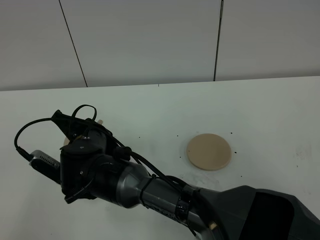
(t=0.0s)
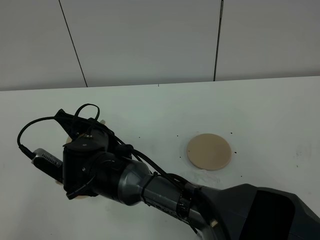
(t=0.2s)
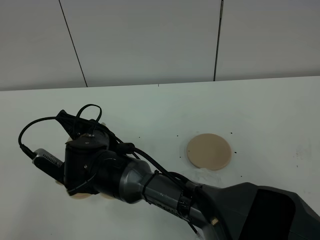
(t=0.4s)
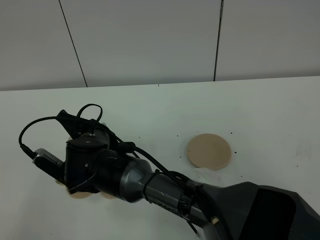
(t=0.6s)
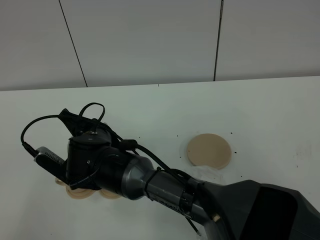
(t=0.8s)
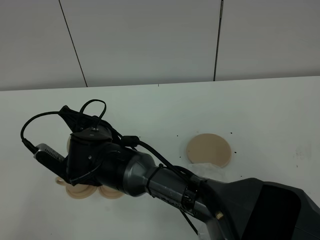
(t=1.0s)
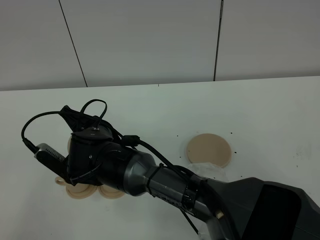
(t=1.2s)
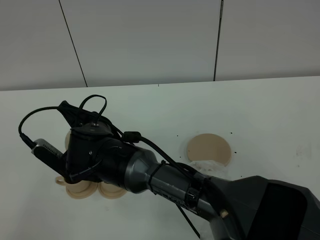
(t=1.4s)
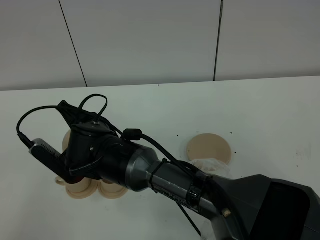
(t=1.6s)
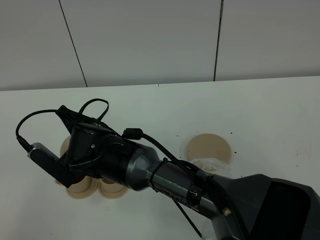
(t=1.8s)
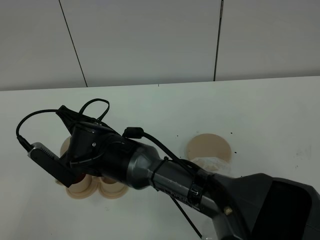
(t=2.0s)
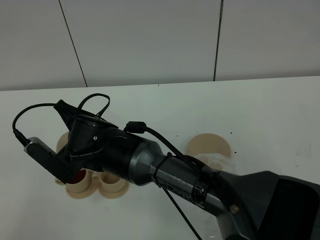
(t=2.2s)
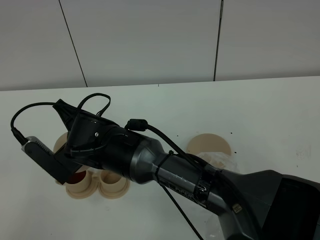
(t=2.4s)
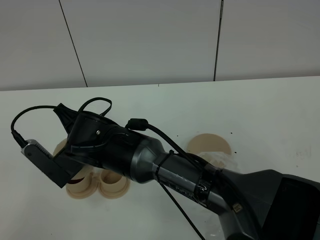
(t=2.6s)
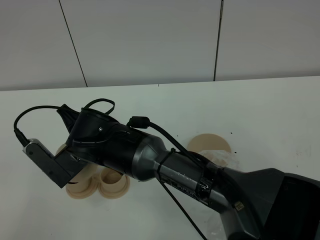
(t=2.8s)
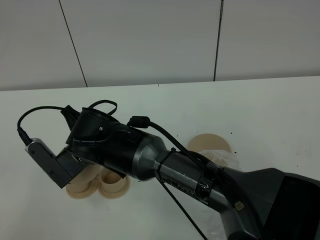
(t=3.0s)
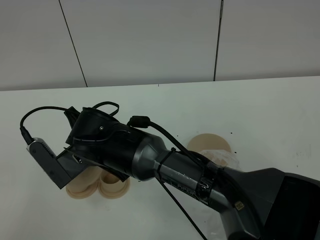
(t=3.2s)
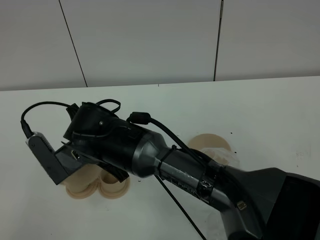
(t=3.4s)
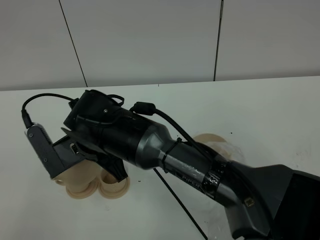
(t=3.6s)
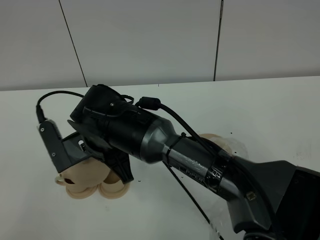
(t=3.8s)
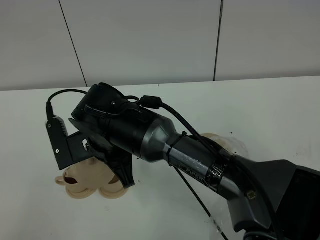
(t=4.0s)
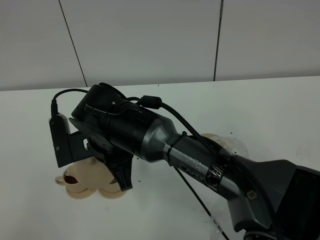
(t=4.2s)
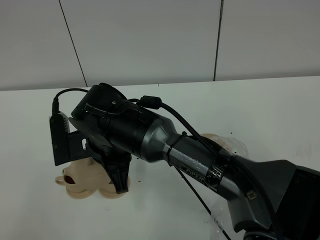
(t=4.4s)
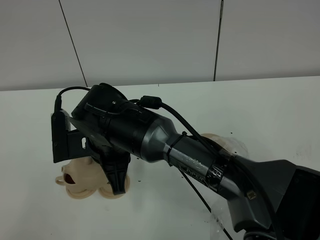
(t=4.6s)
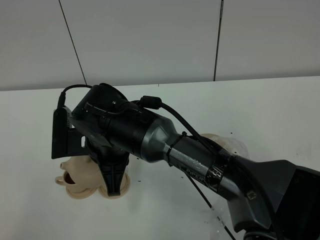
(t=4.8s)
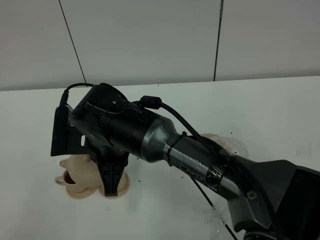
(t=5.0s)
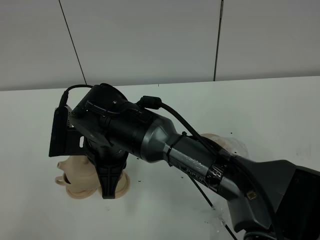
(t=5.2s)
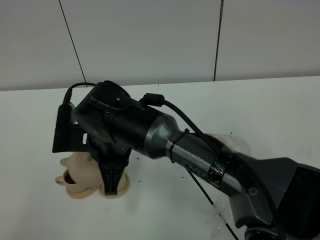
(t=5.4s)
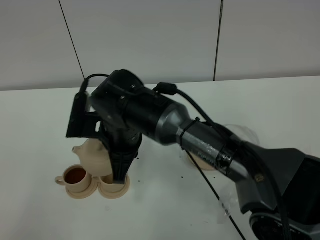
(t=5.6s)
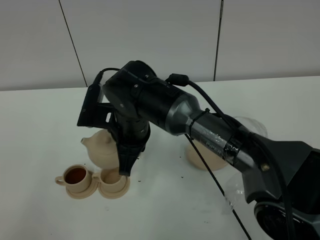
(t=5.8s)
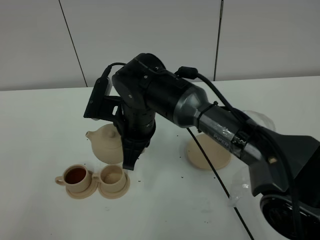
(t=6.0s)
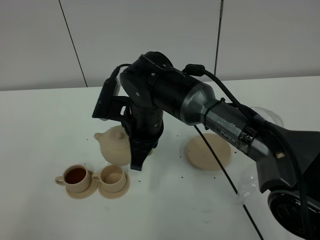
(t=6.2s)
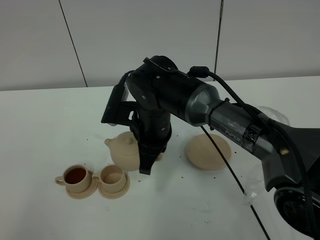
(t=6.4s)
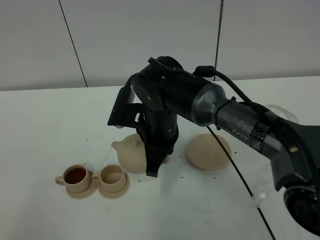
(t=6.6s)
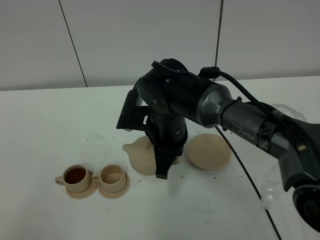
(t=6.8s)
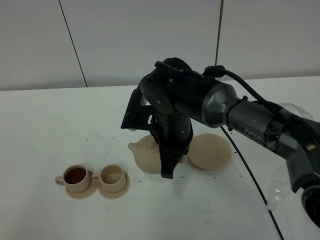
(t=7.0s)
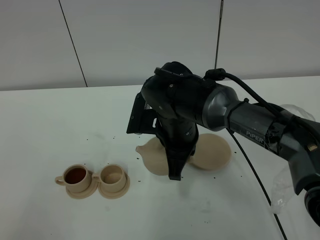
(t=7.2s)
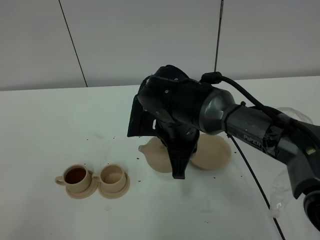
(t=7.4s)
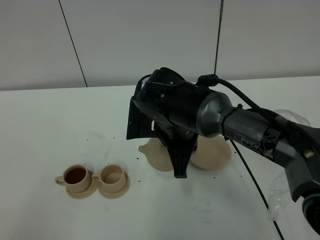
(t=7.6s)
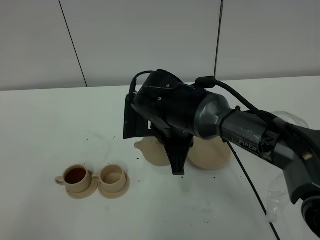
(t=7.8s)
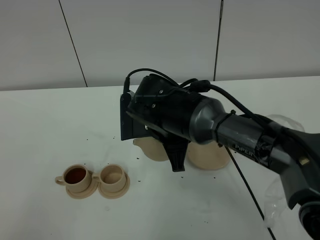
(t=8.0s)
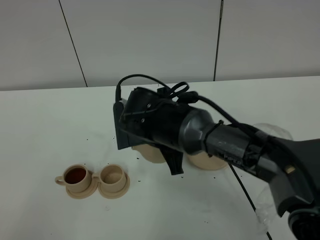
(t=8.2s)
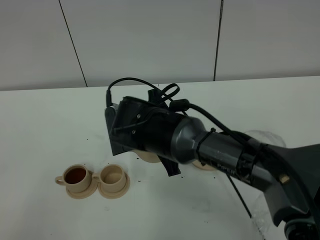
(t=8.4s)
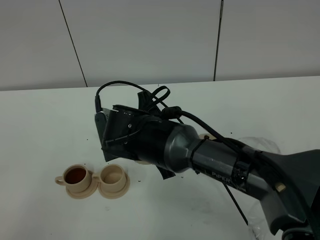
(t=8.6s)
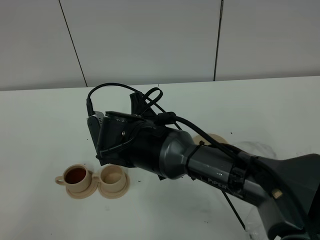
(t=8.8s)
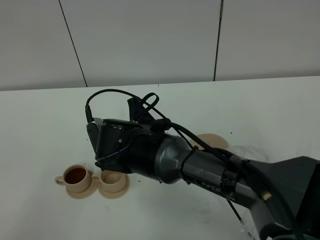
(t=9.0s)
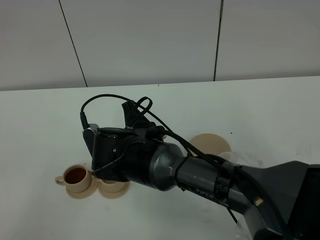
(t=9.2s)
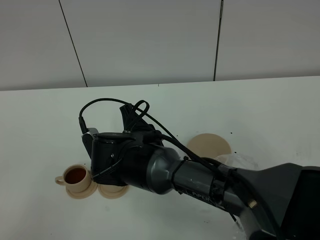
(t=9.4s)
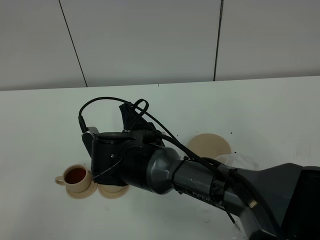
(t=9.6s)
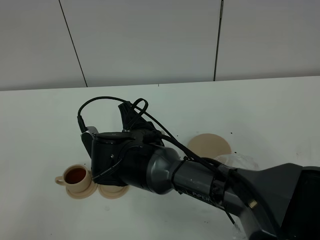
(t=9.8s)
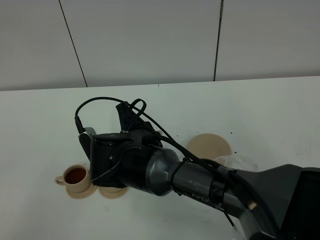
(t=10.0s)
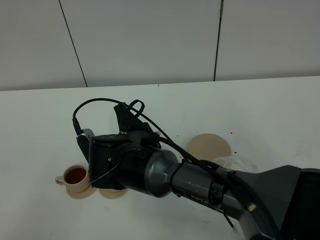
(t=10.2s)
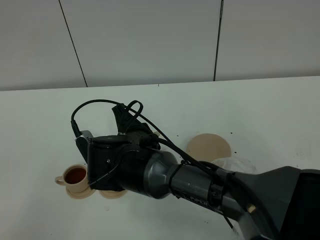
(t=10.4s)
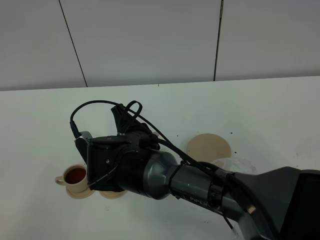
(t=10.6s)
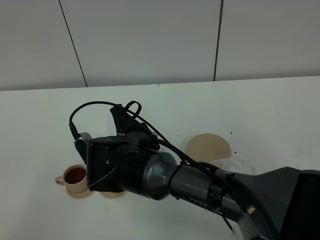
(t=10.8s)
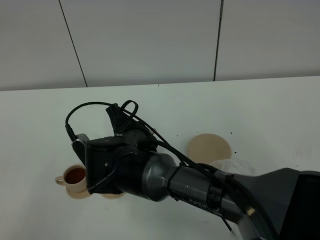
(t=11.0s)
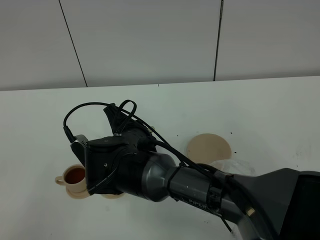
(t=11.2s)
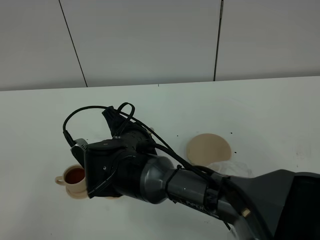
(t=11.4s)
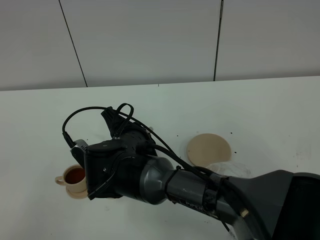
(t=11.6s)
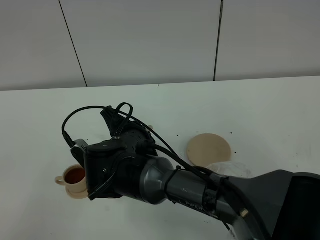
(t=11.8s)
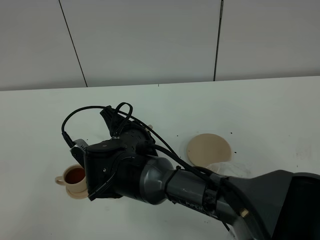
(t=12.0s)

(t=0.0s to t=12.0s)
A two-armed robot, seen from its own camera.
Task of the whole recording: grasp the brown teapot and pour the tea into the two brown teacups one by one, put the brown teapot back in its original place.
t=0.0s - t=1.6s: The grippers make only small movements.
t=1.6s - t=3.0s: The grippers make only small movements.
t=4.4s - t=6.0s: The right gripper travels forward by roughly 5 cm.
t=6.0s - t=7.6s: The right gripper heads to the right, covering approximately 5 cm.
t=7.6s - t=9.0s: The right gripper shifts about 5 cm to the left.
t=9.0s - t=10.4s: The grippers stay close to where they were, moving slightly.
t=10.4s - t=12.0s: There are only small adjustments of the grippers.

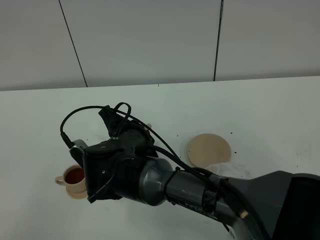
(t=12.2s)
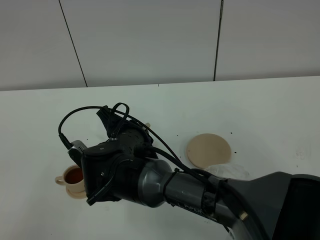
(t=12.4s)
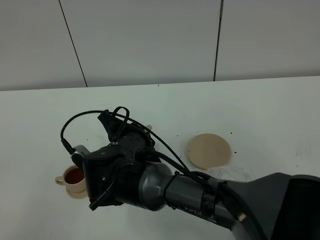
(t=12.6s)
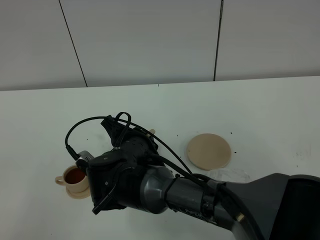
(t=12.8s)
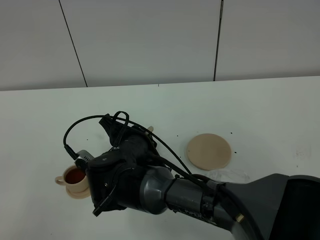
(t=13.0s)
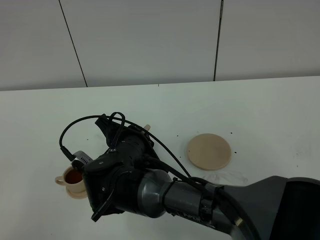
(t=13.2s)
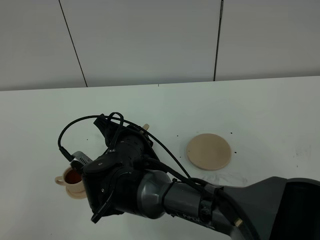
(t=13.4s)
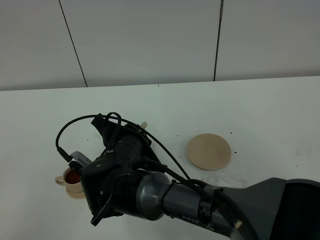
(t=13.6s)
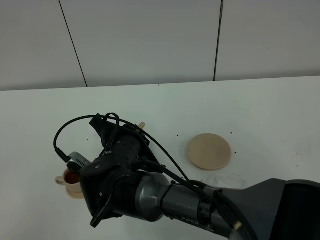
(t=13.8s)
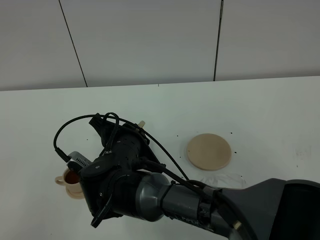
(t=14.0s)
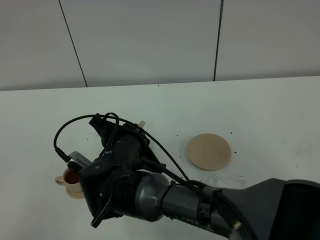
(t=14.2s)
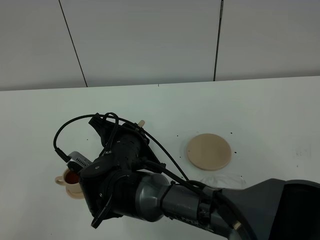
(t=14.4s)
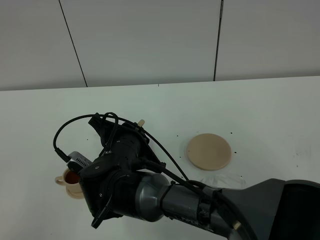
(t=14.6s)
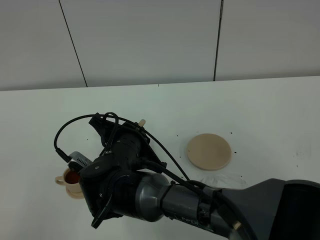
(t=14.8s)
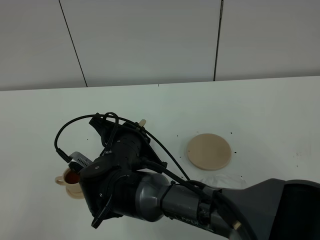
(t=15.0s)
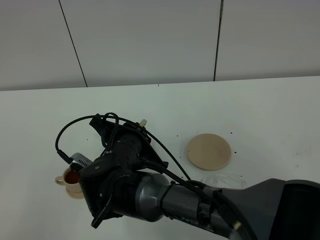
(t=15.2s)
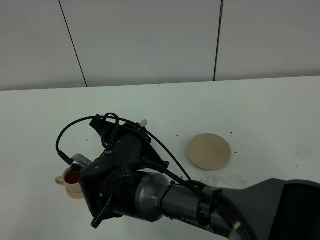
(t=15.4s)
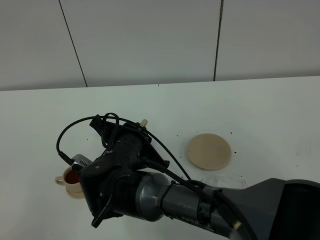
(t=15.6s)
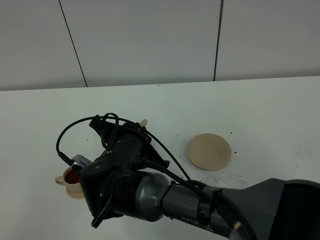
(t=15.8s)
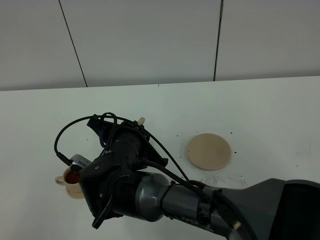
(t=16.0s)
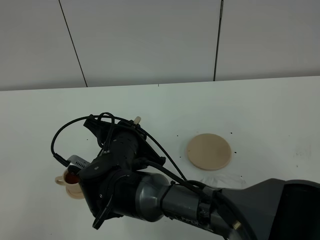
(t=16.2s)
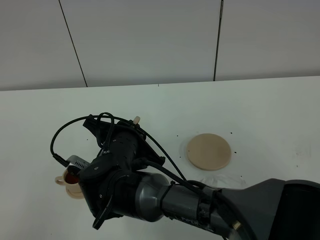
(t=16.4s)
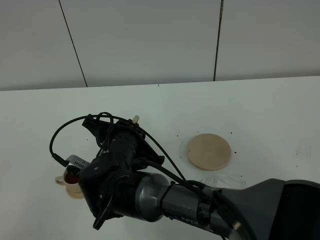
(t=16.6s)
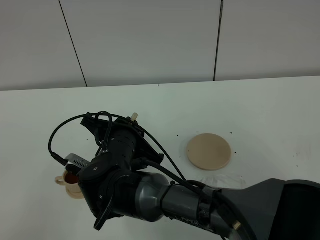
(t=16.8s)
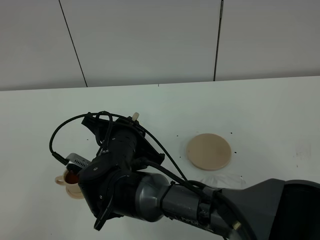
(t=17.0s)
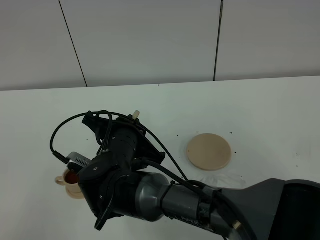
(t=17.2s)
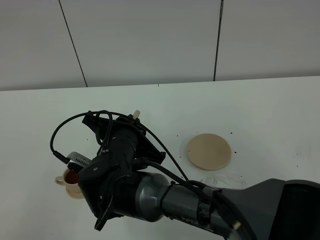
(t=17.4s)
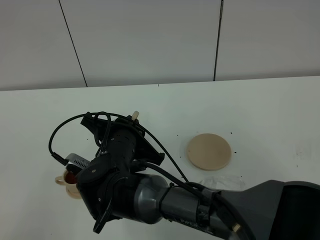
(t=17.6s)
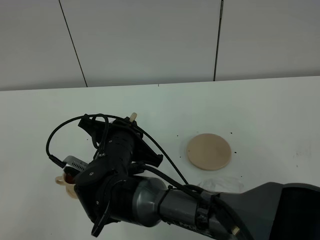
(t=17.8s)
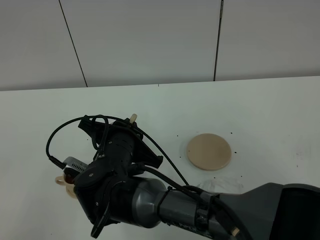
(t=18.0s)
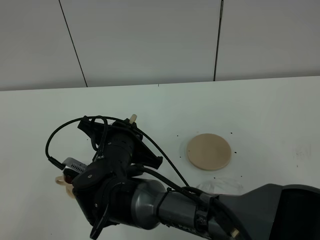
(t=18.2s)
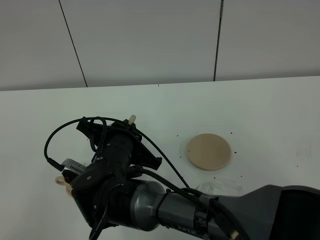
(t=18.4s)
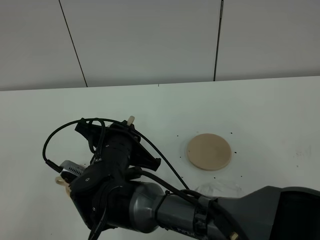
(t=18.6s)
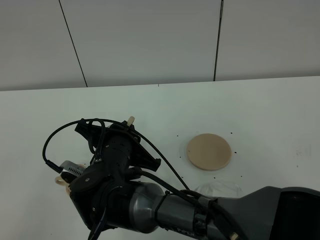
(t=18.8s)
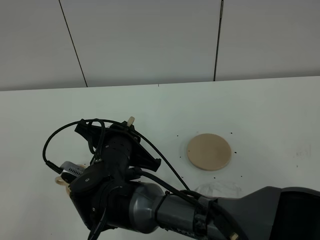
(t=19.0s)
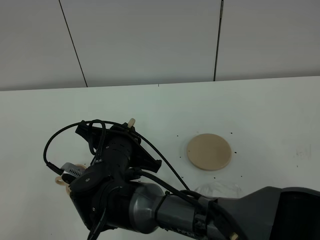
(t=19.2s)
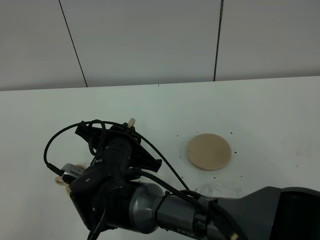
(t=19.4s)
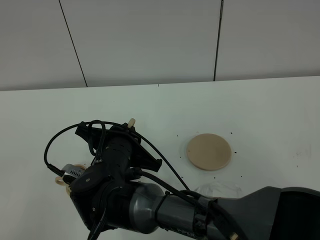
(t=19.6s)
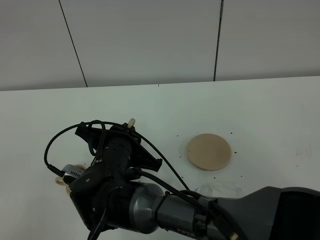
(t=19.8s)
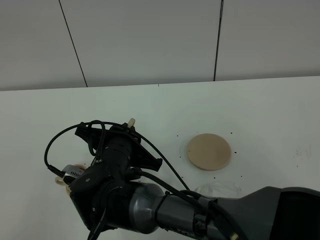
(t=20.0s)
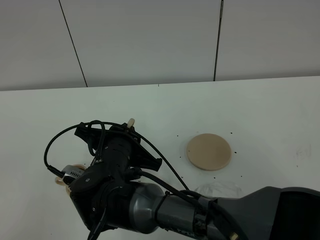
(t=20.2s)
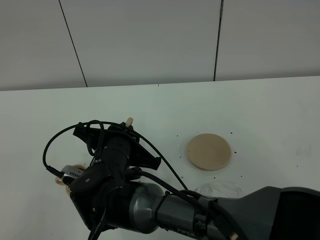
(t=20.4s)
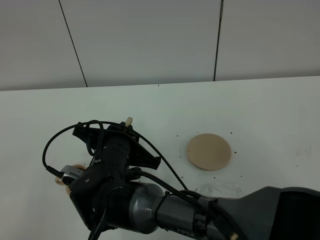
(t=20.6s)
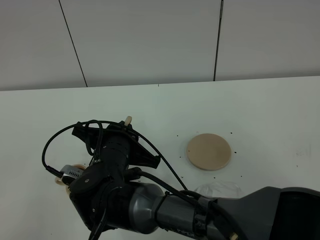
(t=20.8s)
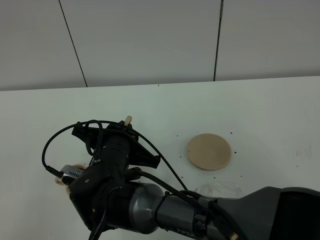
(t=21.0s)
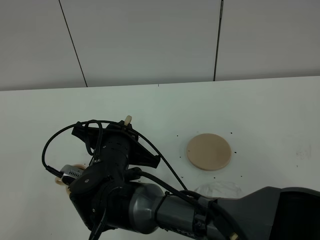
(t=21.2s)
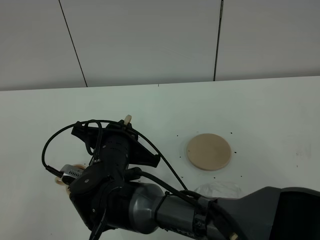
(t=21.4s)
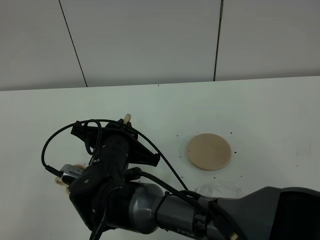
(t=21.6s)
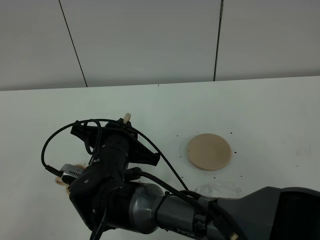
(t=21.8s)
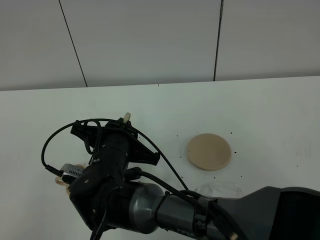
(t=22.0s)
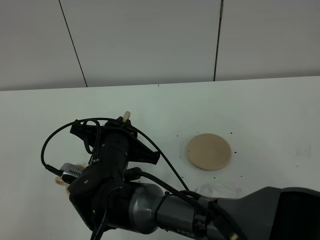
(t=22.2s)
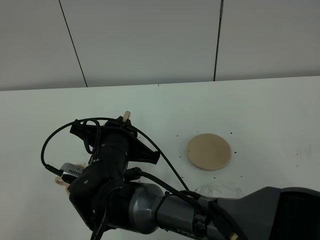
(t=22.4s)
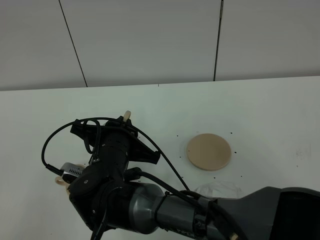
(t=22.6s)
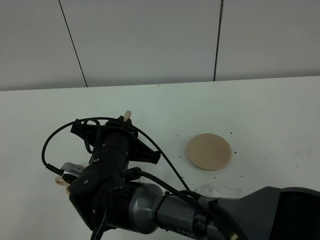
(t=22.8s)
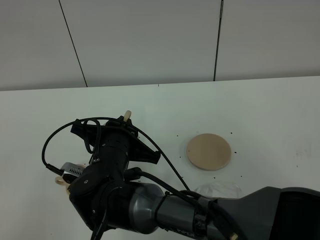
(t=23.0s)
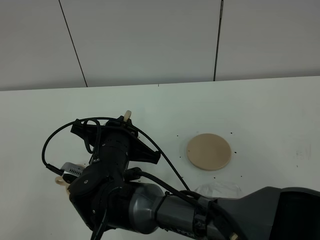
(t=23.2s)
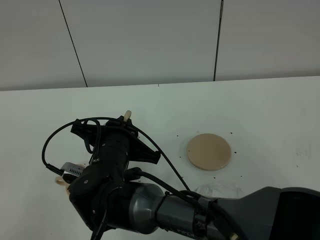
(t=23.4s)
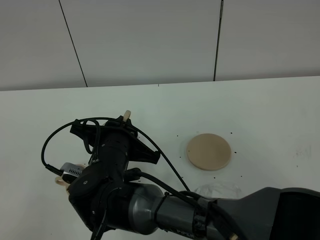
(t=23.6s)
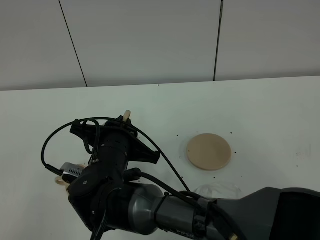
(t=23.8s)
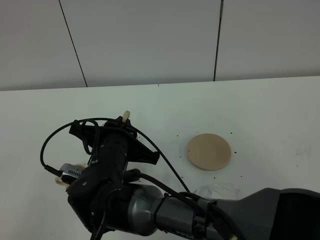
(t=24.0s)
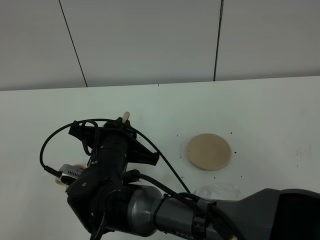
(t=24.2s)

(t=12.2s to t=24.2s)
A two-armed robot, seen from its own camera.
Task of the whole recording: grasp the brown teapot and pour the tea into the two brown teacups one by one, put the brown teapot back in its original place.
t=12.2s - t=13.8s: The grippers stay close to where they were, moving slightly.
t=13.8s - t=15.2s: The two grippers keep their place.
t=15.2s - t=16.6s: There are only small adjustments of the grippers.
t=16.6s - t=18.2s: Neither gripper changes place.
t=18.2s - t=19.8s: Both grippers stay about where they are.
t=19.8s - t=21.2s: Both grippers stay put.
t=21.2s - t=24.2s: Both grippers stay about where they are.
